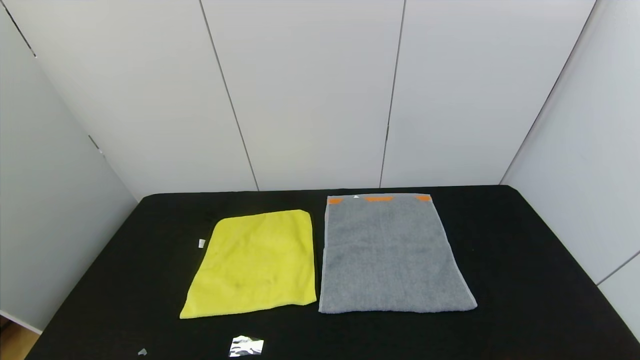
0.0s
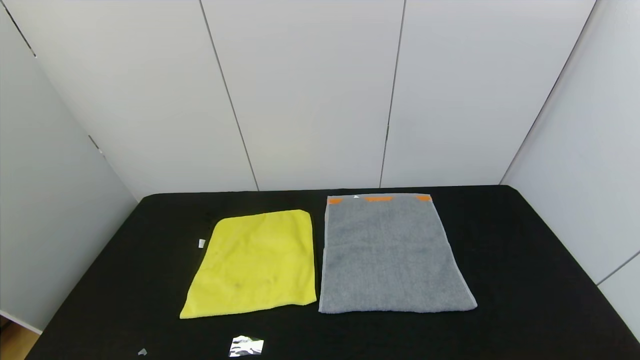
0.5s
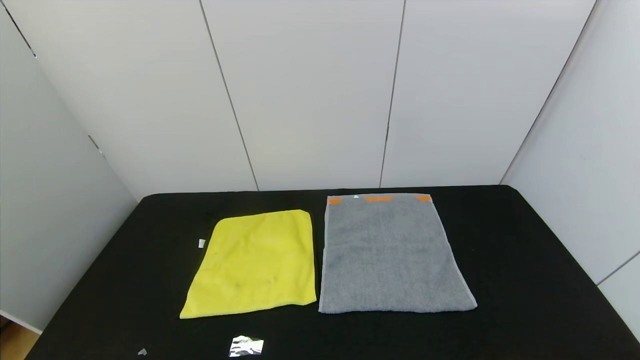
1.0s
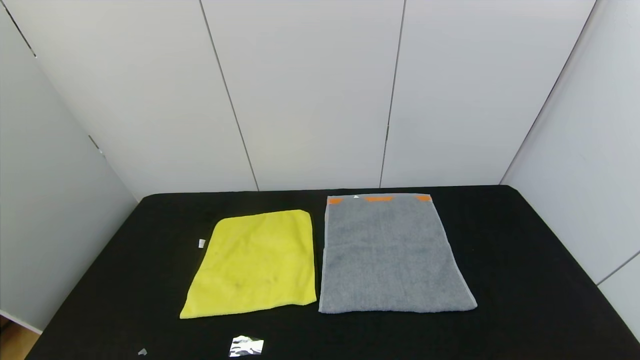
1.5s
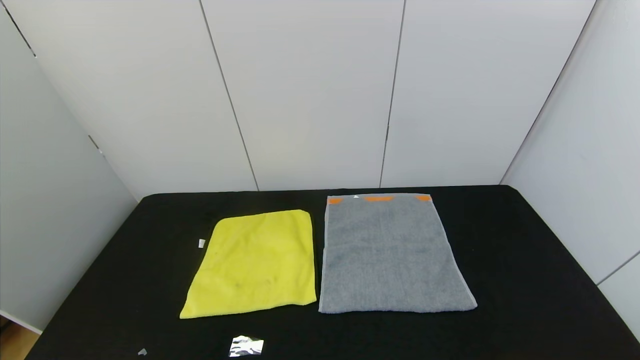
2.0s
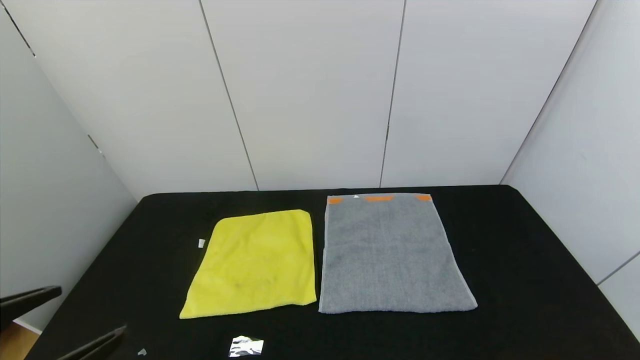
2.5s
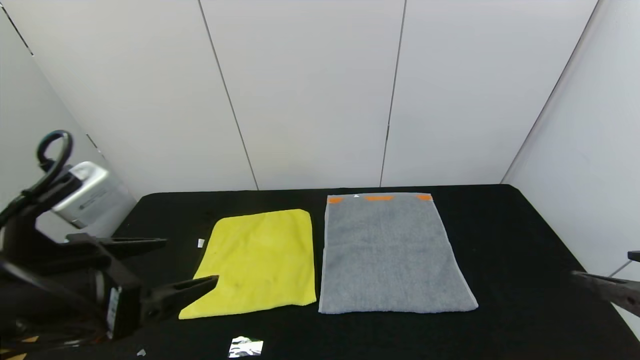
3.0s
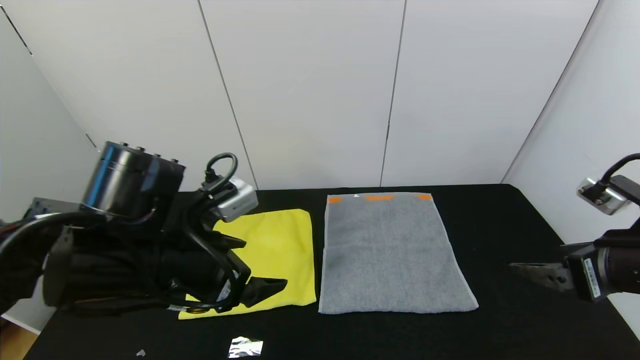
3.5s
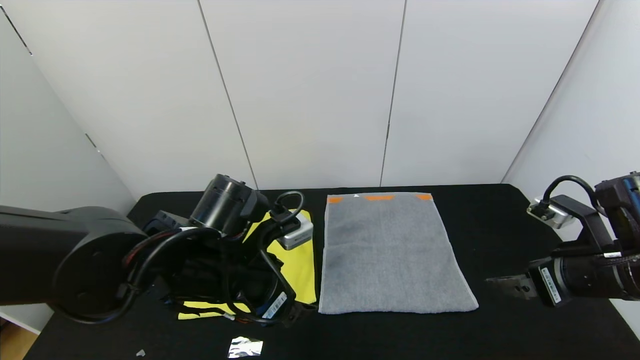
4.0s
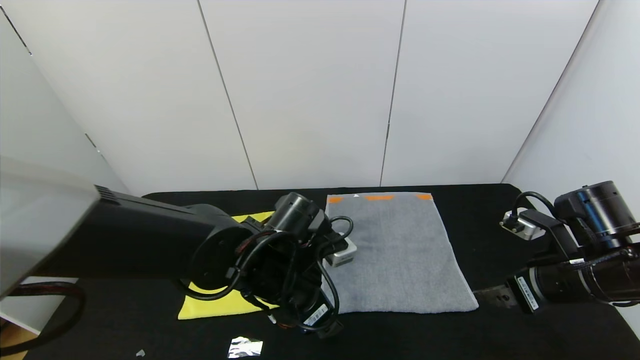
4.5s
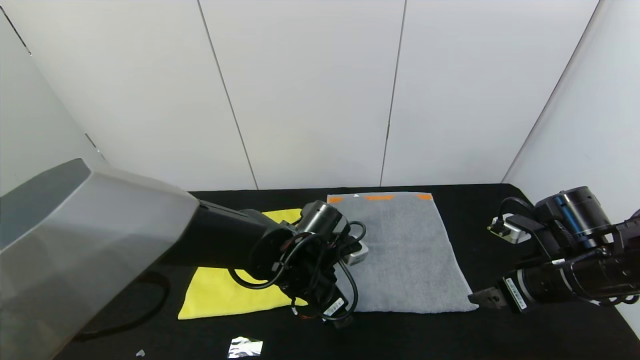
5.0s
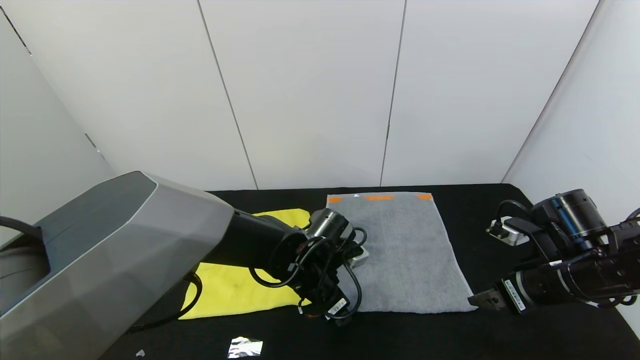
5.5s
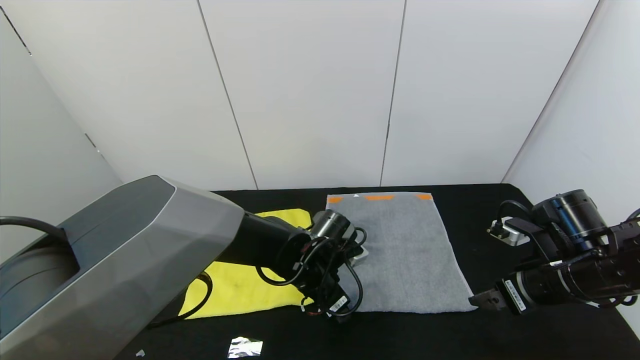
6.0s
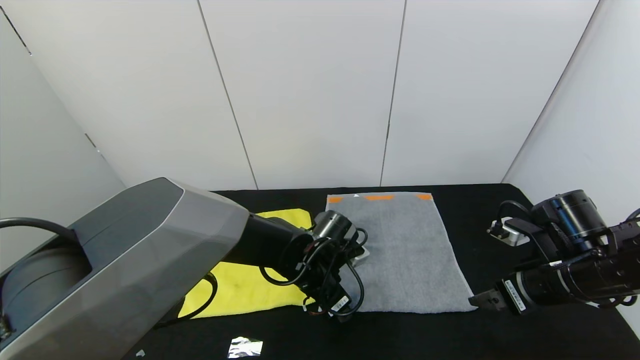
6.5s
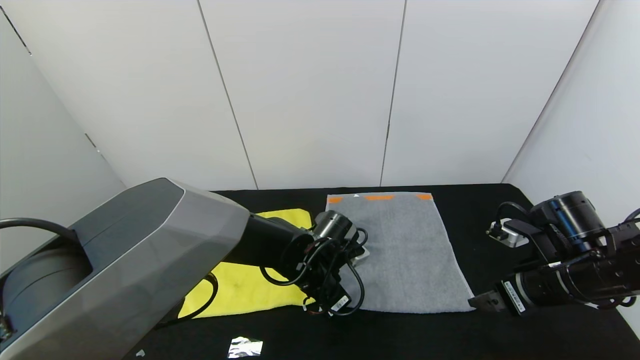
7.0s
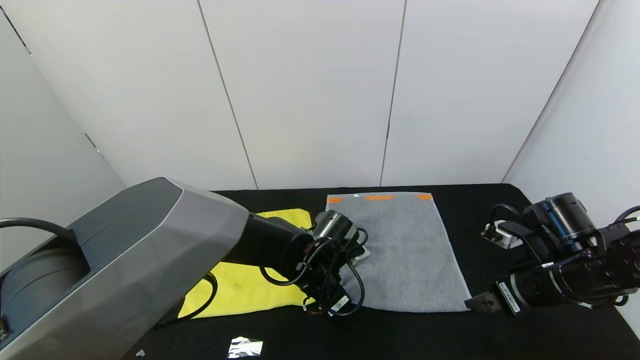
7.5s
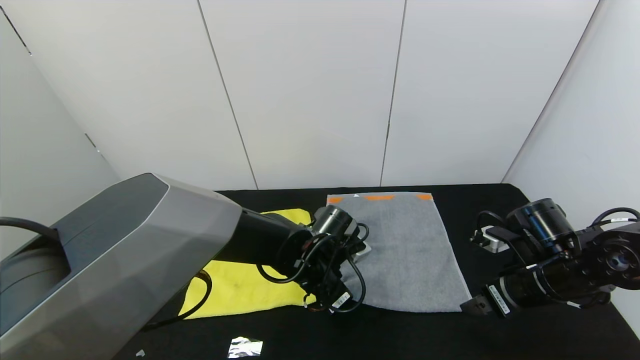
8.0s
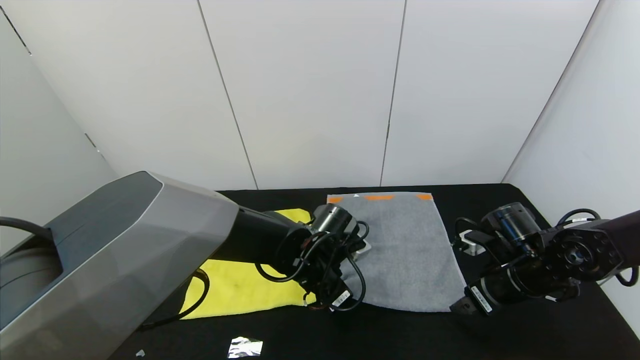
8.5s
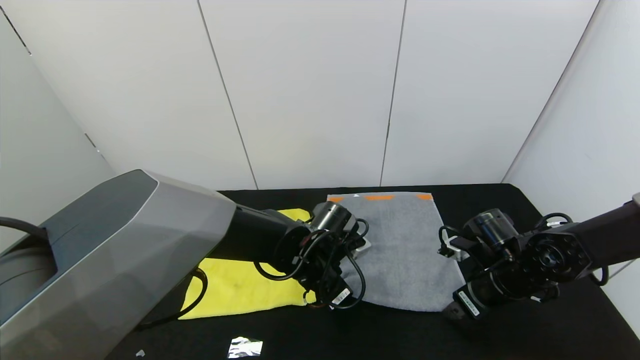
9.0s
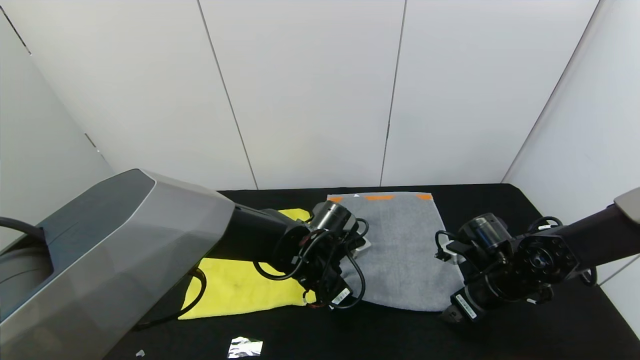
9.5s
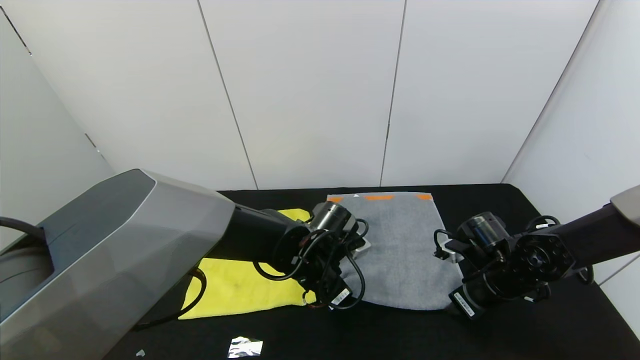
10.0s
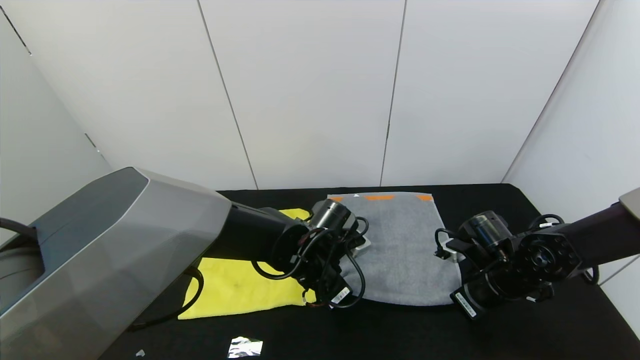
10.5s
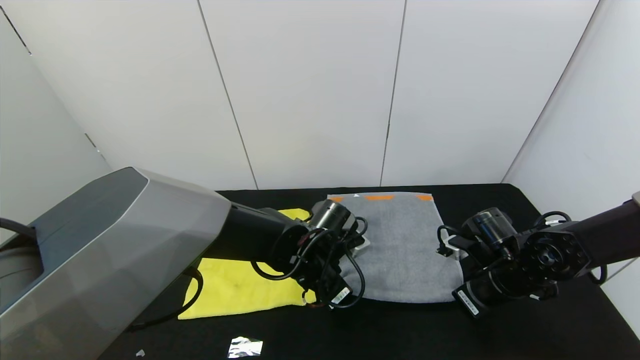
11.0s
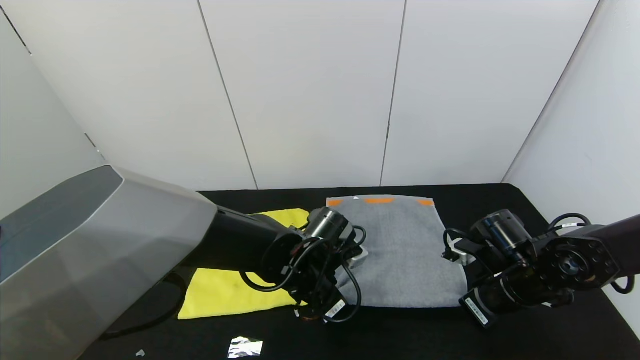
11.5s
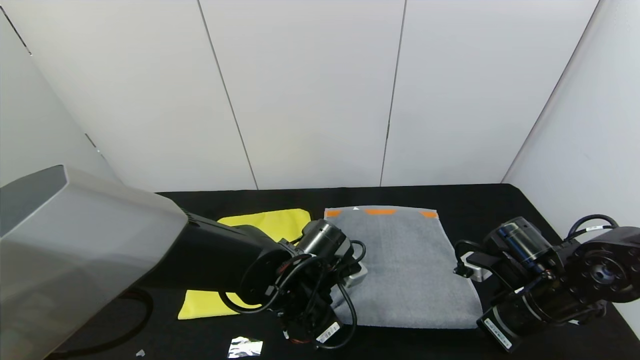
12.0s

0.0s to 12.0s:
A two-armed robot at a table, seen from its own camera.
Task of the whole recording: Use the gripper to fold the yellow towel and grey towel in half twice,then put the yellow towel on the grey towel.
2.0s to 4.0s: The left gripper shifts approximately 30 cm forward and to the right, while the right gripper moves forward, some 25 cm.
4.0s to 6.0s: The right gripper changes place by some 5 cm, while the left gripper moves downward, to the right and forward, about 15 cm.
6.0s to 8.0s: The left gripper closes its fingers.
8.0s to 10.0s: The right gripper shifts by about 5 cm, and closes.
10.0s to 12.0s: Both grippers move backward, roughly 5 cm. The right gripper closes its fingers.

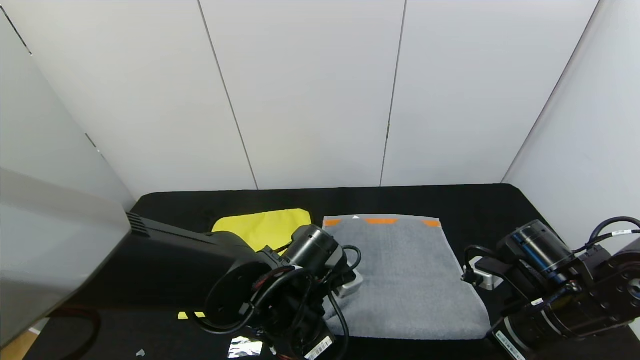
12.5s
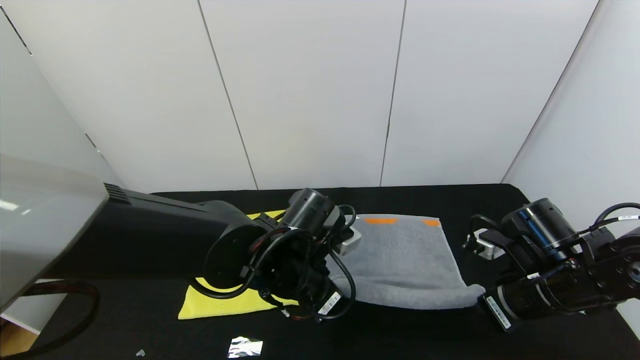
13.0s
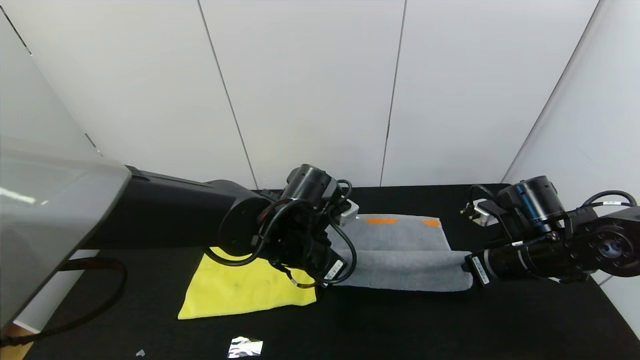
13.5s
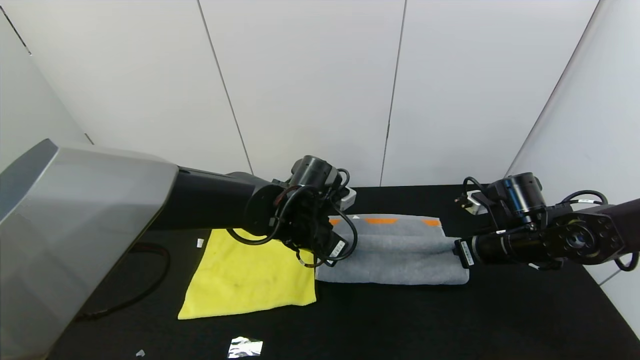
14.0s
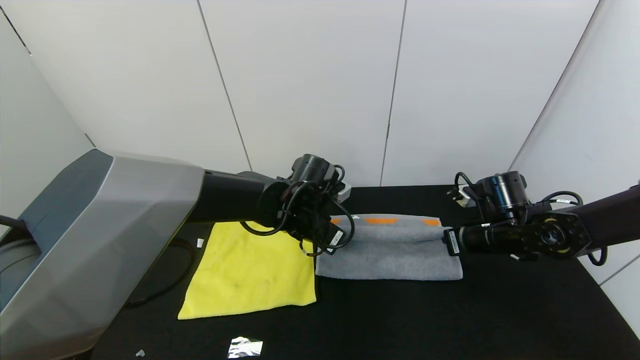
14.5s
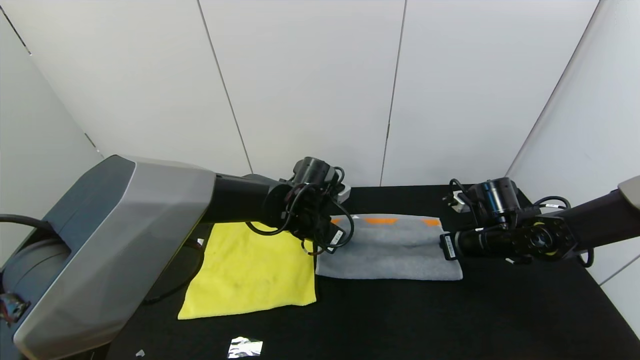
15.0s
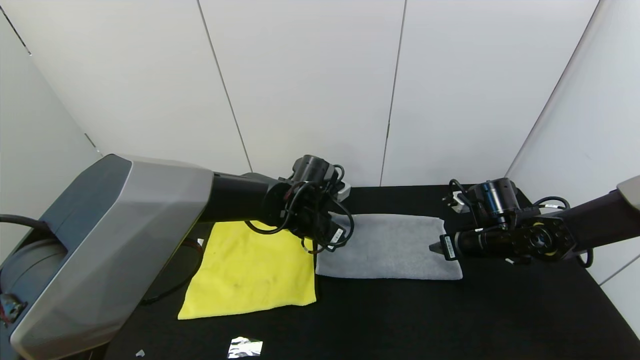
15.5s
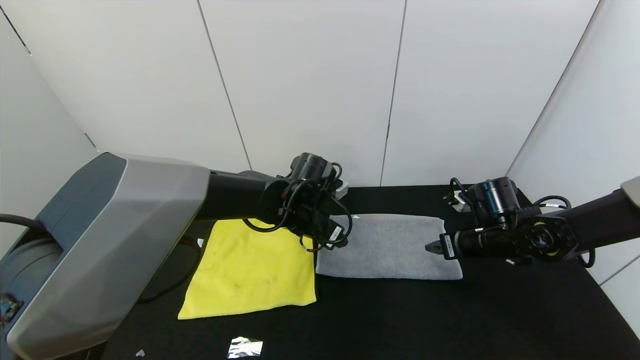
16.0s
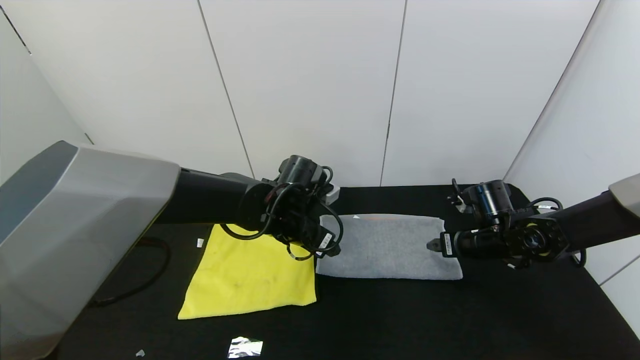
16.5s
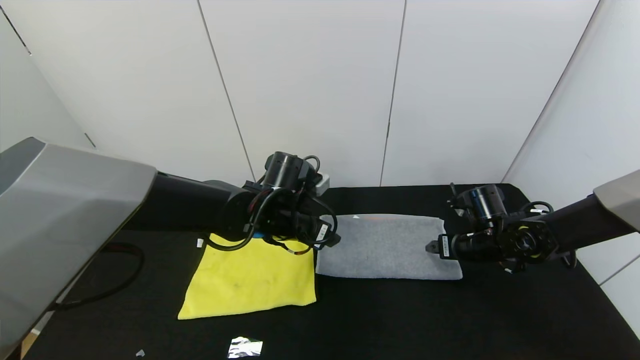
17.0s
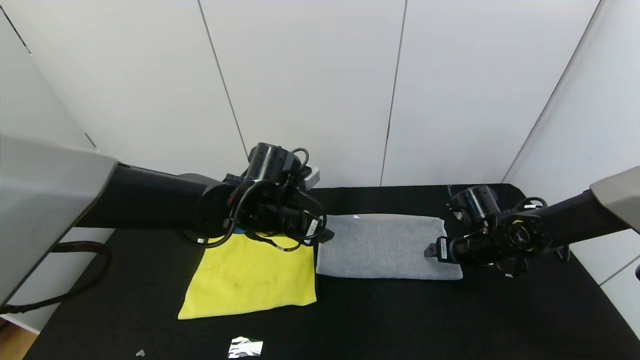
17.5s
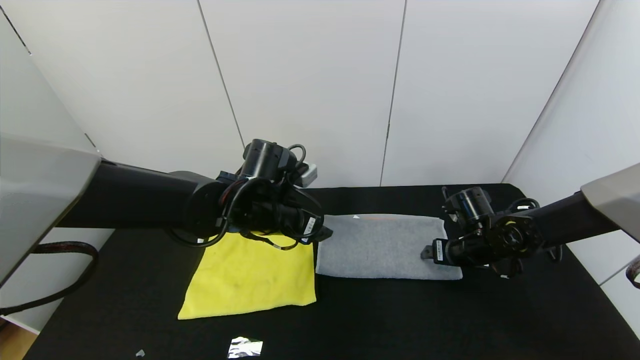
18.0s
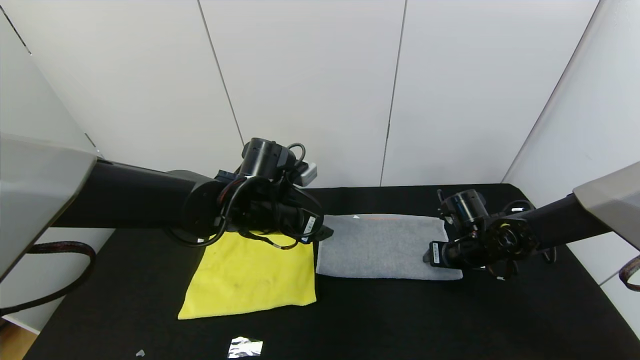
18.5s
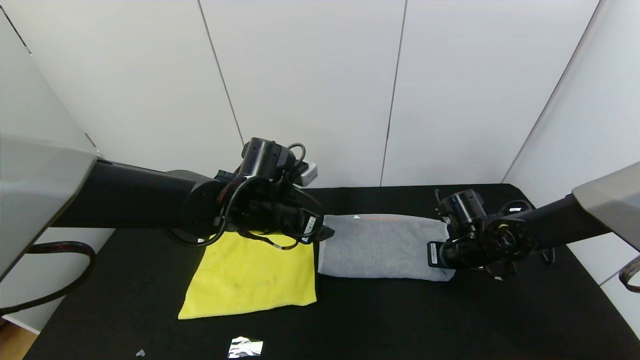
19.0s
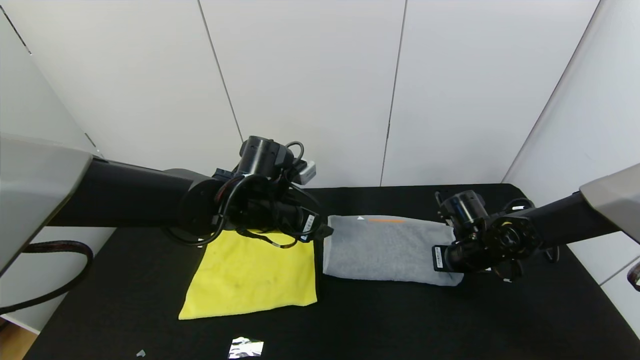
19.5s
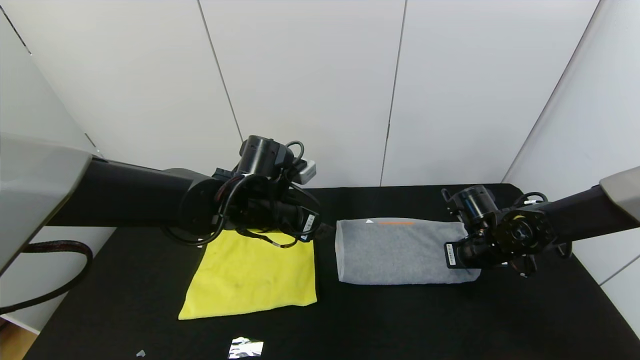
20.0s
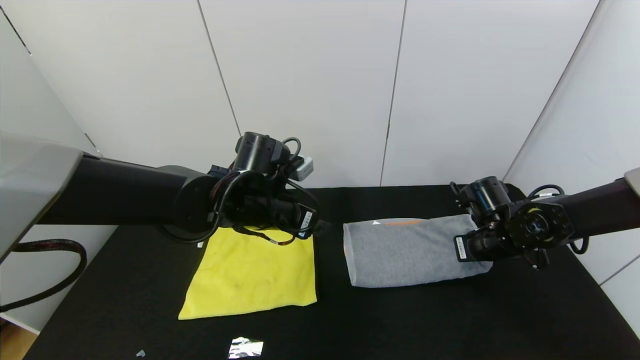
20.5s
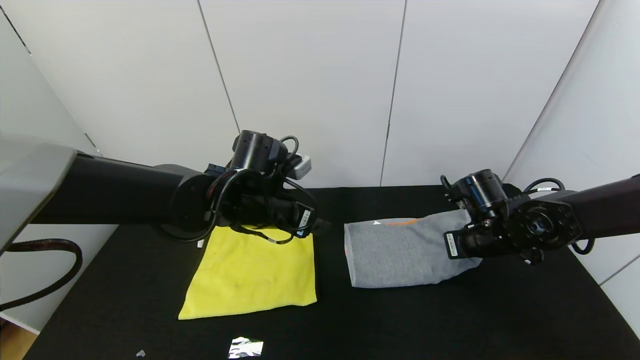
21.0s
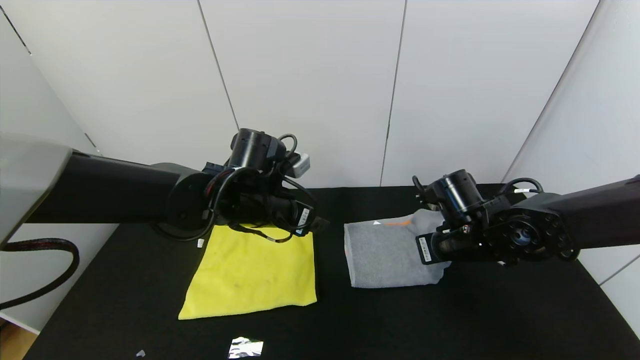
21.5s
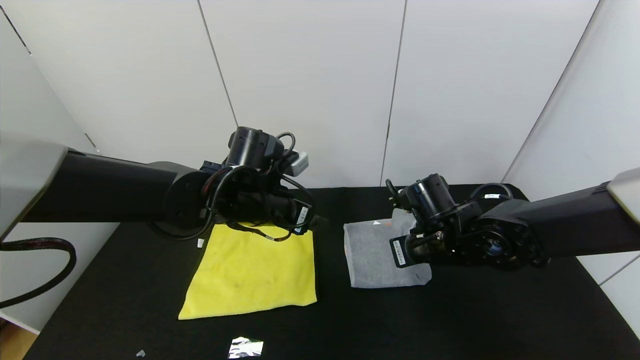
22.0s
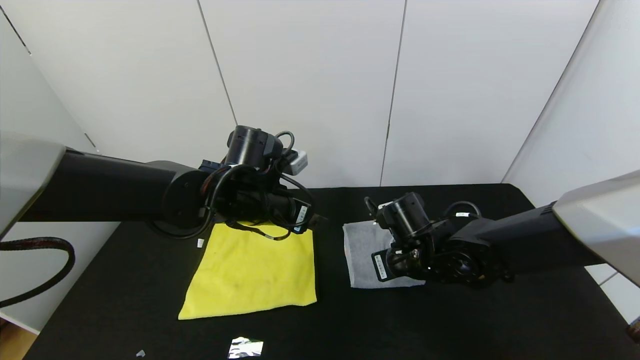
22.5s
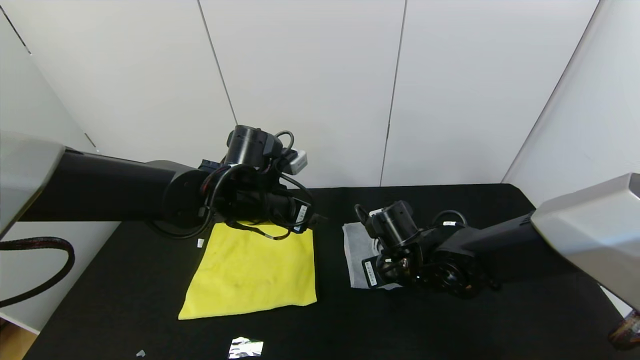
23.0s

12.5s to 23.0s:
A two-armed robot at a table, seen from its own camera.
Task of the whole recording: Use the gripper to fold the yellow towel and grey towel in half twice,then put the yellow towel on the grey towel.
Step, 12.5s to 15.5s: Fold the gray towel upwards with the left gripper.
Step, 12.5s to 15.5s: Fold the gray towel upwards with the right gripper.
12.5s to 14.5s: Both grippers travel together forward, roughly 15 cm.
14.5s to 16.5s: The left gripper opens up. Meanwhile the right gripper opens.
16.5s to 19.0s: The right gripper closes up.
19.0s to 21.0s: The right gripper goes some 5 cm upward.
21.0s to 23.0s: The right gripper is displaced to the left by some 15 cm.
